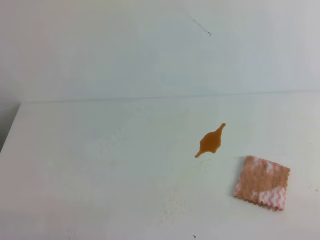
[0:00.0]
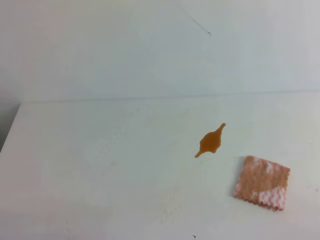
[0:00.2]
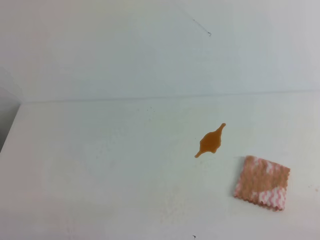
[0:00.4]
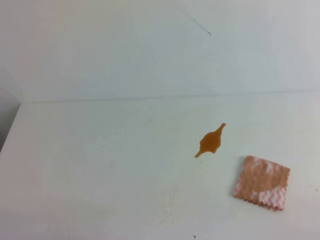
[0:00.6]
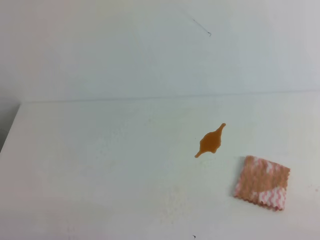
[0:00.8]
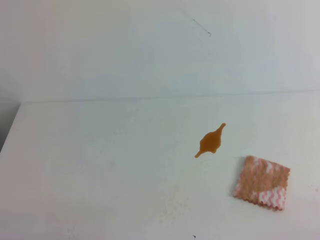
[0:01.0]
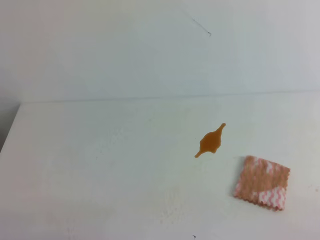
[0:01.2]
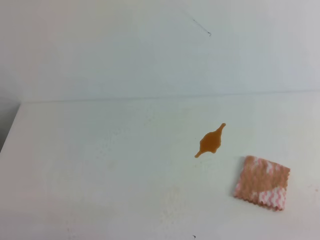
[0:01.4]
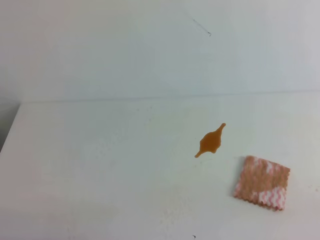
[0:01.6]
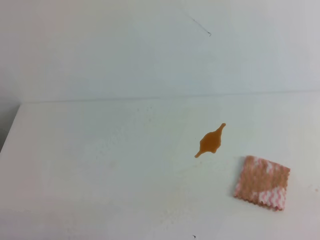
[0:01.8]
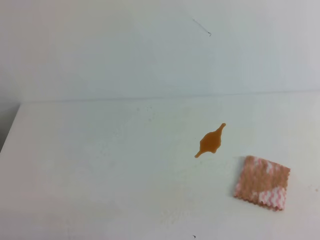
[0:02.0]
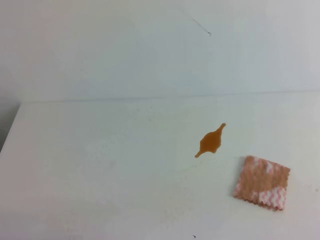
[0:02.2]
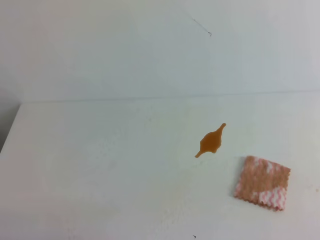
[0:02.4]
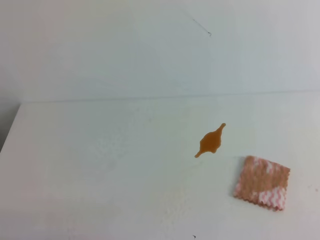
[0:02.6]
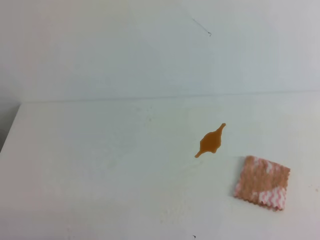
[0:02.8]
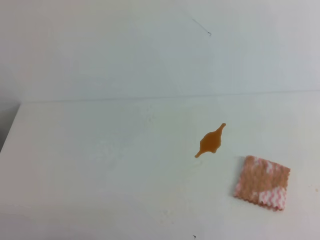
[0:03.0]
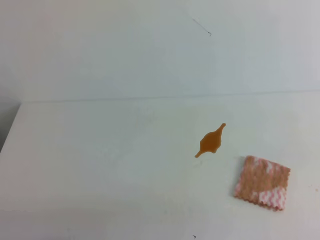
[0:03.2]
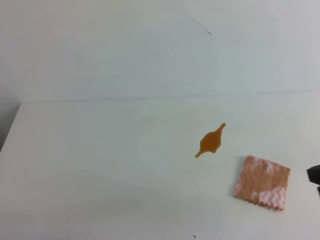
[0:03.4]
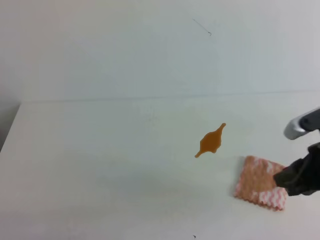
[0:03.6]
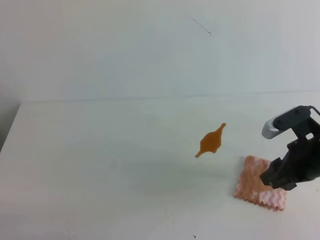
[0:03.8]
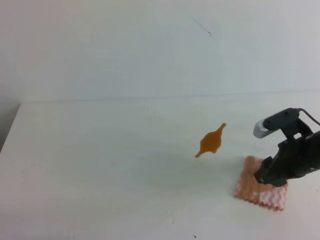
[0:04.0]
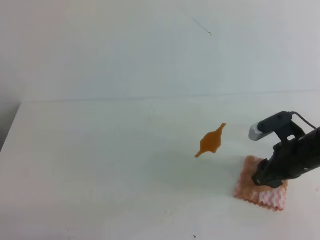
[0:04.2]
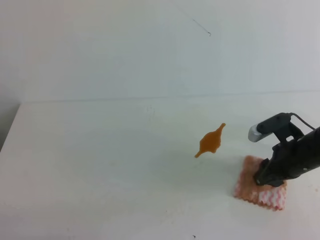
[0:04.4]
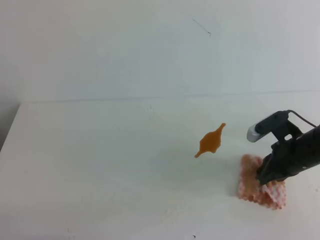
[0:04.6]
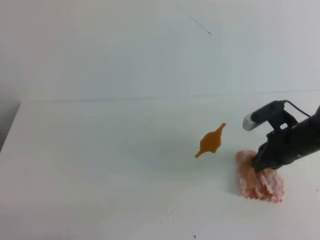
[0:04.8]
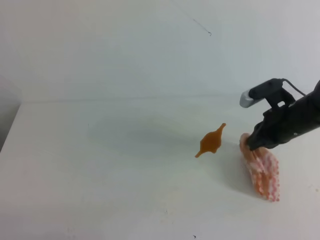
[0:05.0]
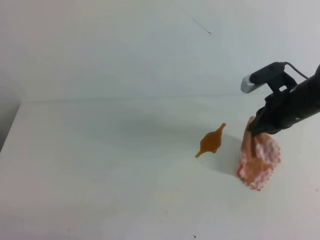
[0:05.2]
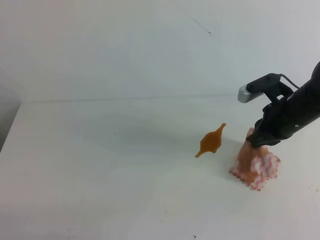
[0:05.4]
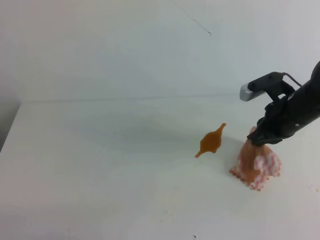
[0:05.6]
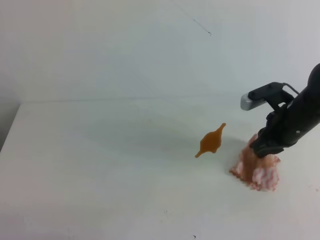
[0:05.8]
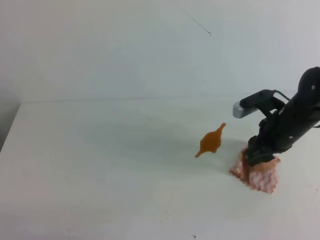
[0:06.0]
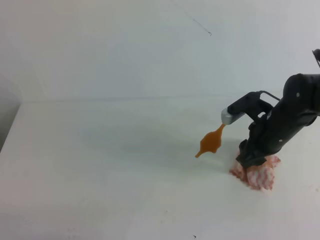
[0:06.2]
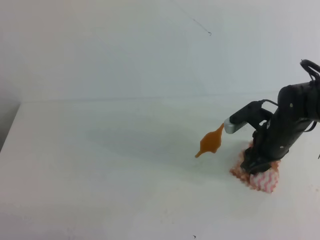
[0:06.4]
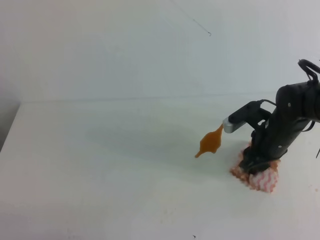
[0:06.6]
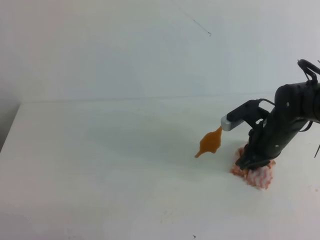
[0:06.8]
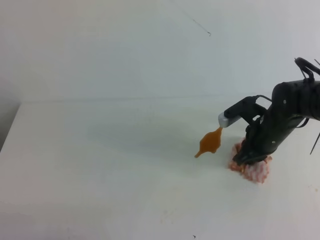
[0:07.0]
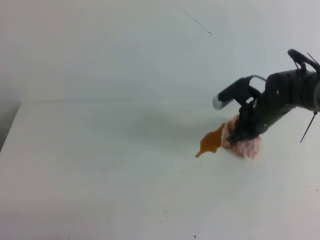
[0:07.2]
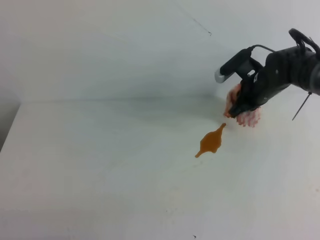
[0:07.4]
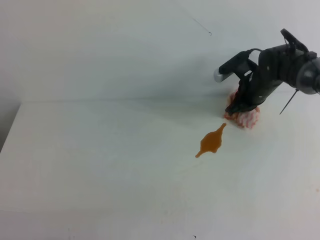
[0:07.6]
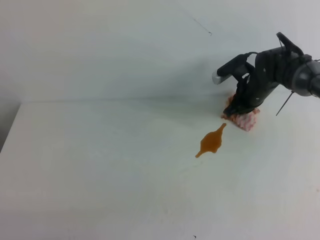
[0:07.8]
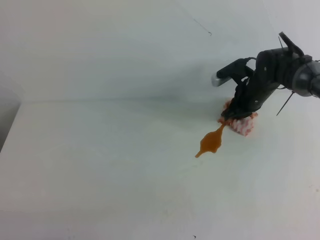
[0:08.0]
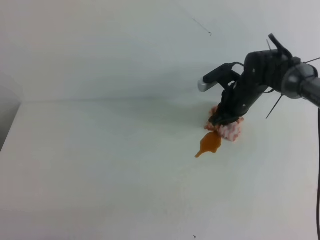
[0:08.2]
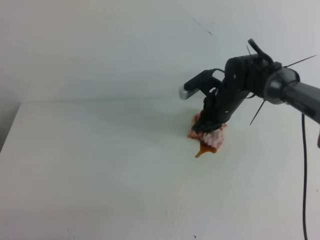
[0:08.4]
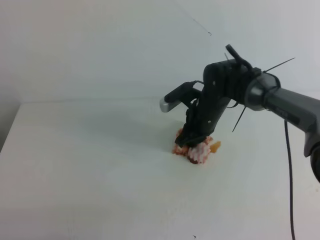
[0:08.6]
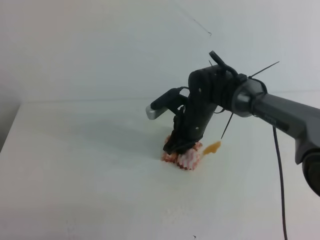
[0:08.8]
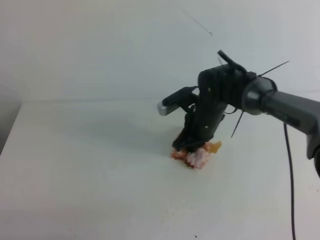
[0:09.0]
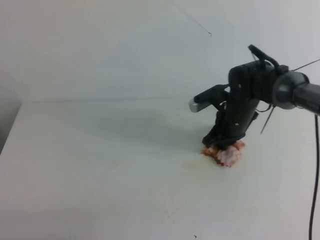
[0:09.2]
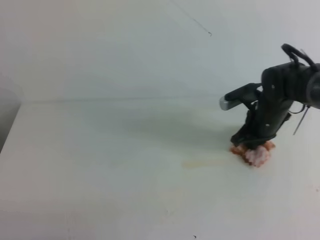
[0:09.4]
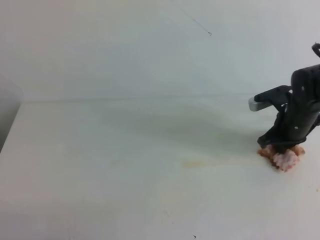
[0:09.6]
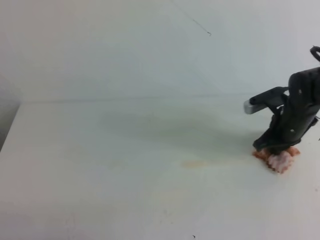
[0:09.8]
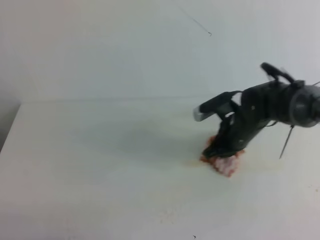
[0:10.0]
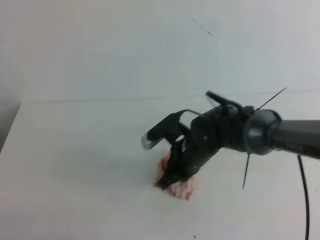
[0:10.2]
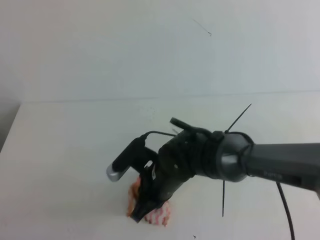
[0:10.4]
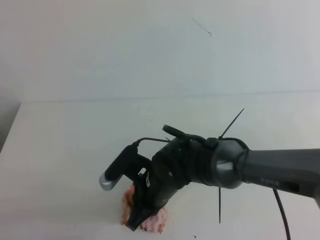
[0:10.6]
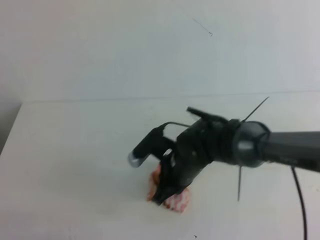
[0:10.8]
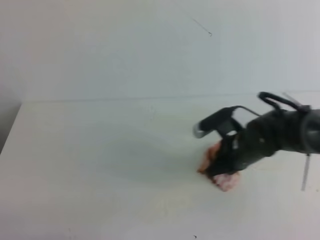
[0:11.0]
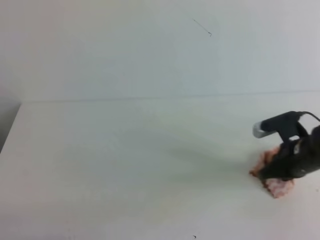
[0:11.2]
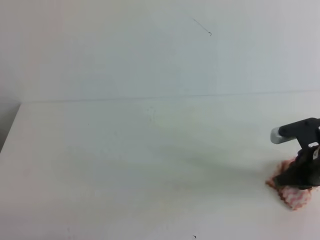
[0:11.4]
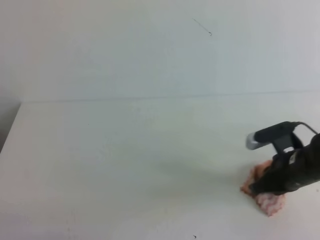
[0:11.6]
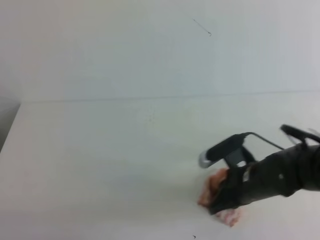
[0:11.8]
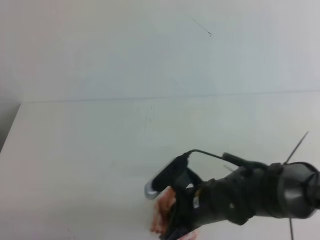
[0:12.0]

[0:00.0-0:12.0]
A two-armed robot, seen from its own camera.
0:03.0 to 0:04.4: The right gripper travels forward and downward by approximately 30 cm, and opens its fingers.
0:04.4 to 0:06.0: The right gripper moves about 5 cm, and closes and opens again.
0:06.0 to 0:07.6: The right gripper heads forward, covering approximately 10 cm, and closes.
0:07.6 to 0:09.0: The right gripper goes about 15 cm to the left and backward.
0:09.0 to 0:10.4: The right gripper goes about 15 cm backward, and reaches about 15 cm to the right, then returns.
0:10.4 to 0:12.0: The right gripper moves approximately 25 cm to the right and comes back.

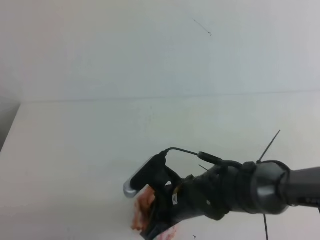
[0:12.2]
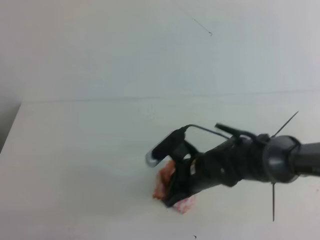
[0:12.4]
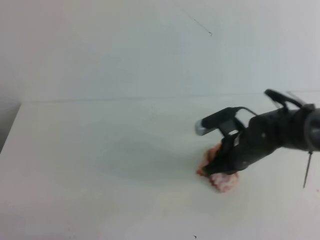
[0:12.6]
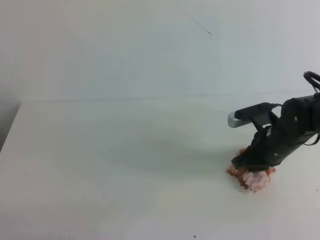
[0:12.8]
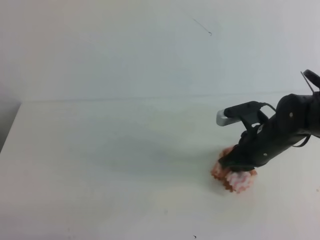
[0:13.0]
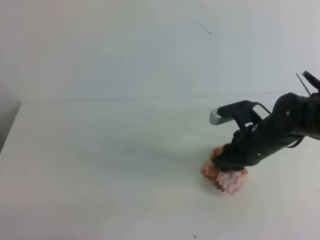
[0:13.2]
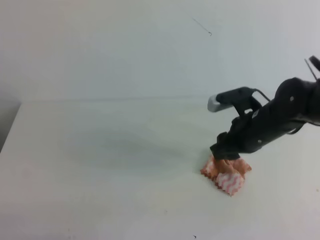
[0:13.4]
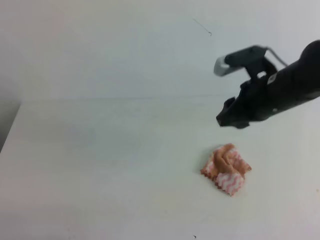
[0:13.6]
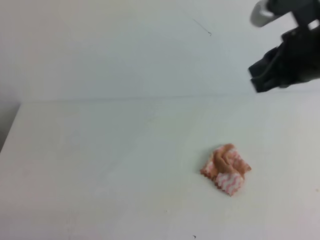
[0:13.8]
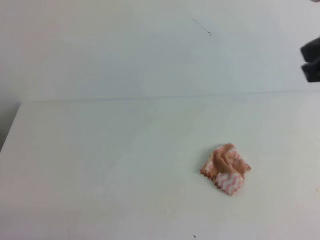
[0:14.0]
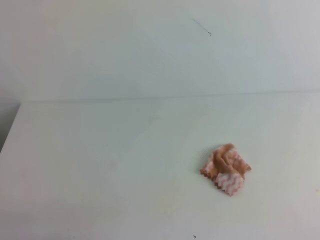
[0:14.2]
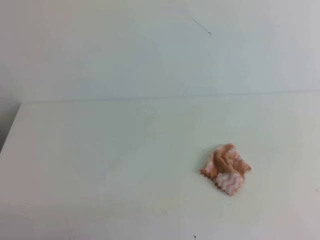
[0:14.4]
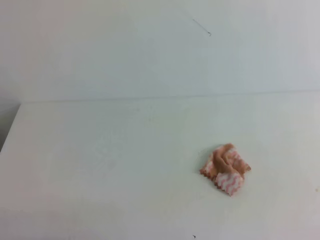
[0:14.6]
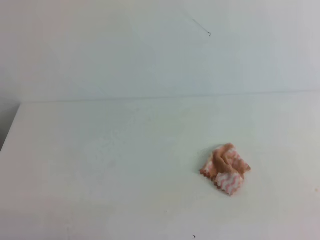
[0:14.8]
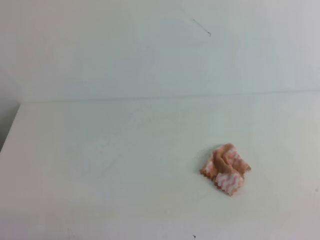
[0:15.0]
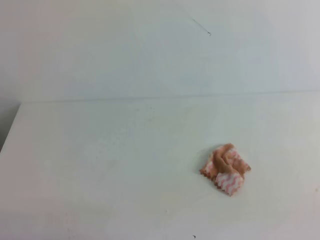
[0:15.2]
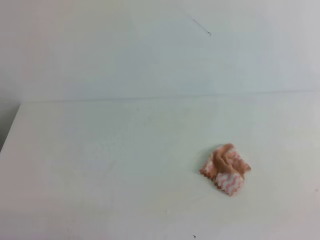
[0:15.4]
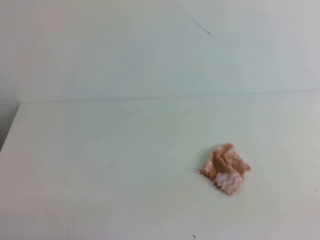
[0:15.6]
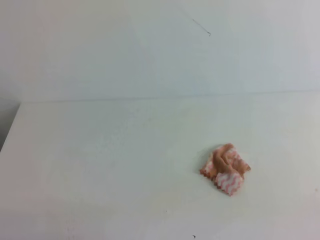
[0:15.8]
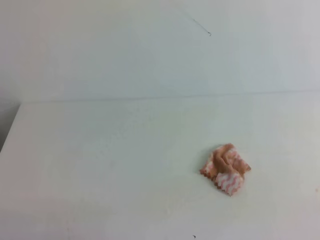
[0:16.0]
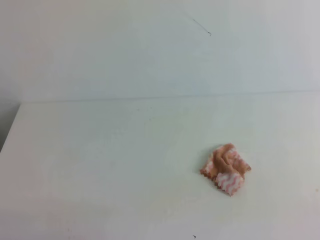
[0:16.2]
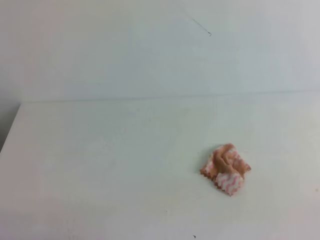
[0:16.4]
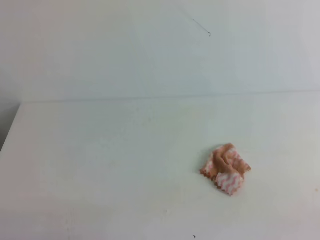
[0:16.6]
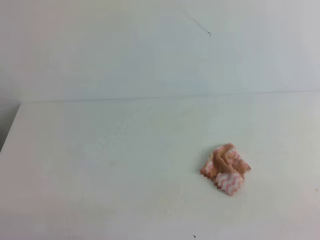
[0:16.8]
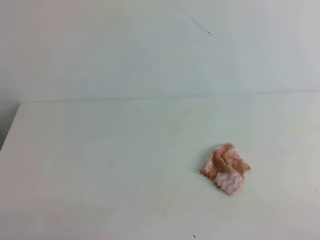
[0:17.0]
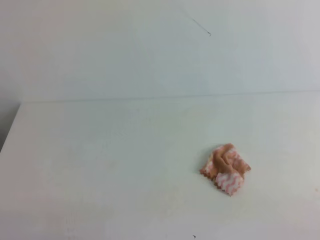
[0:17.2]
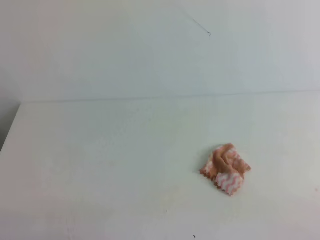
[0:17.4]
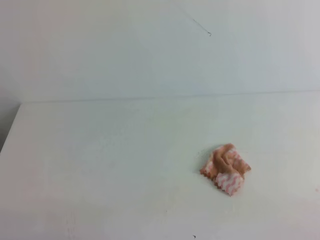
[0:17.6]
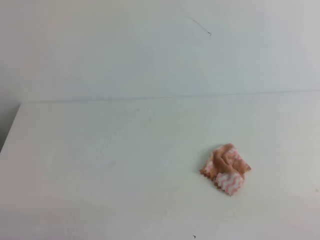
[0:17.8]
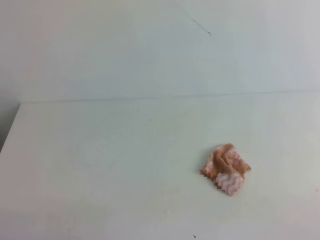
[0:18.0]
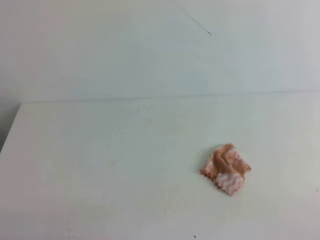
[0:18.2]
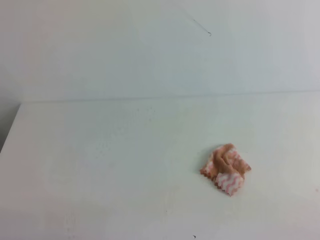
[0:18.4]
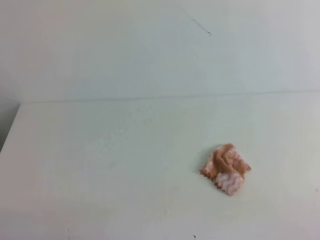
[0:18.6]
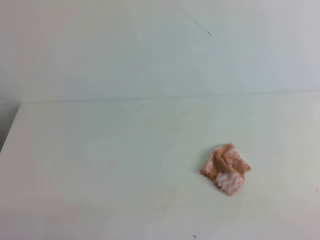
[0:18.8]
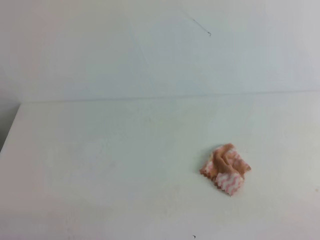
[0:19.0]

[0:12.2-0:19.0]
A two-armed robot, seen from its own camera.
0:12.2 to 0:13.6: The right gripper travels upward, to the right and forward by about 20 cm, and opens up.
0:13.6 to 0:15.0: The right gripper travels backward and to the right by about 30 cm, and closes its fingers.
